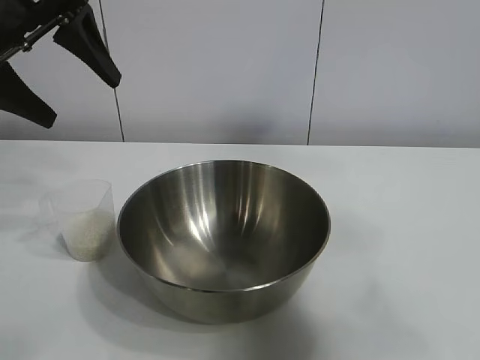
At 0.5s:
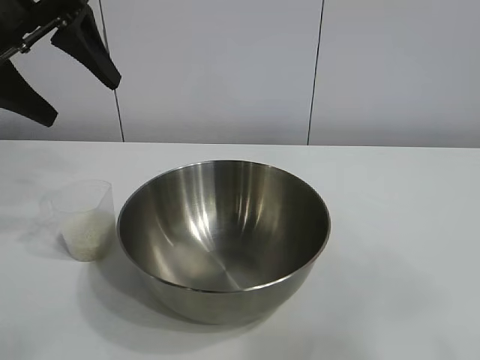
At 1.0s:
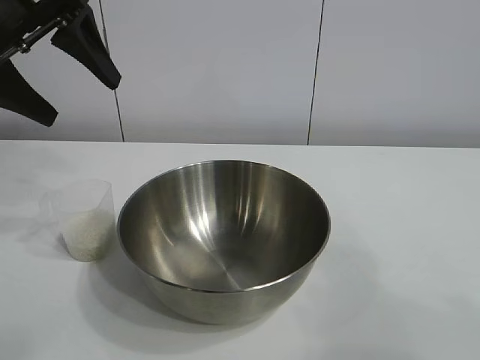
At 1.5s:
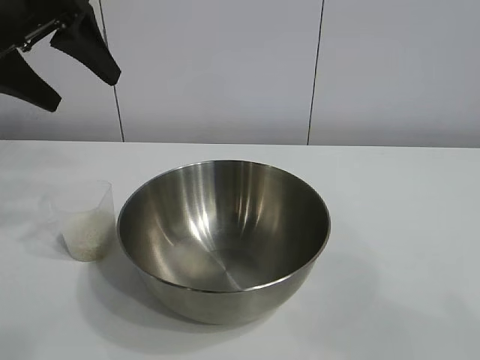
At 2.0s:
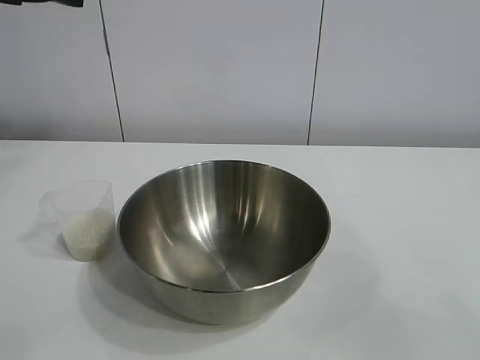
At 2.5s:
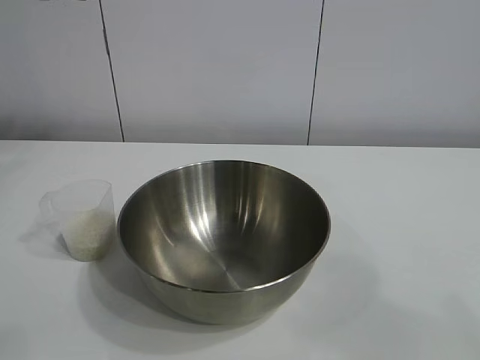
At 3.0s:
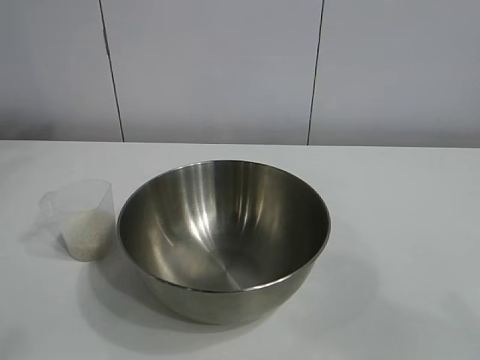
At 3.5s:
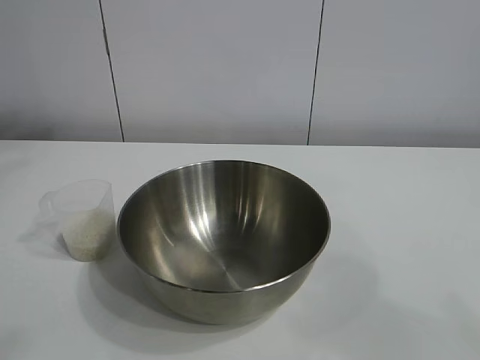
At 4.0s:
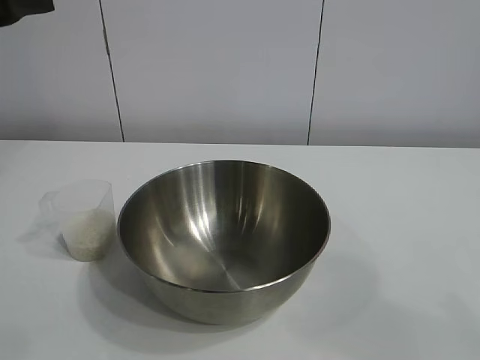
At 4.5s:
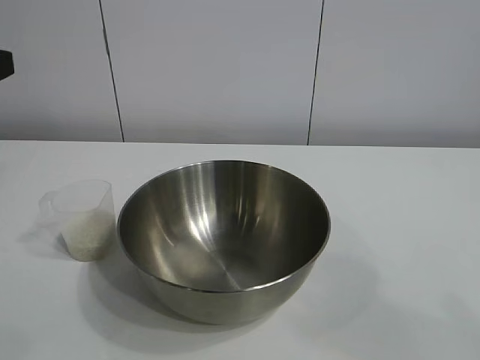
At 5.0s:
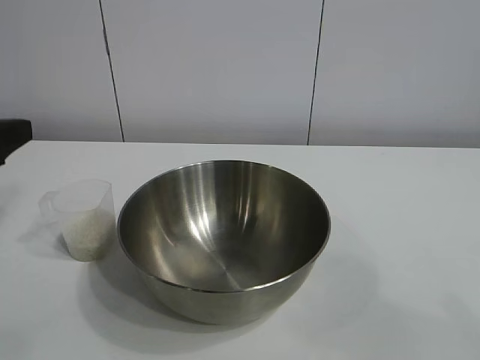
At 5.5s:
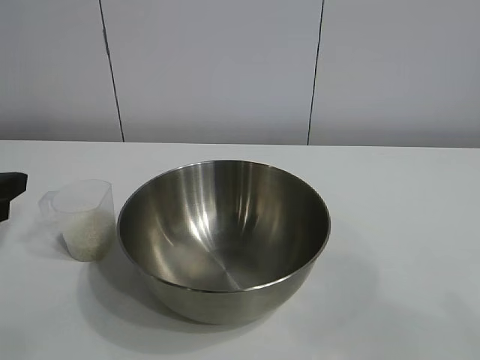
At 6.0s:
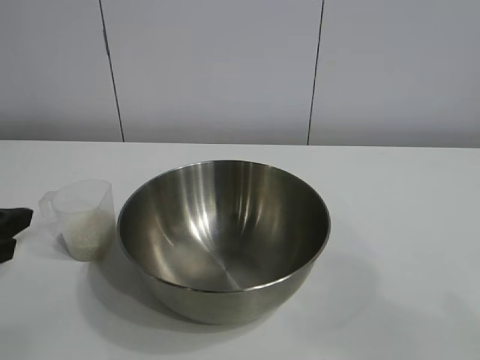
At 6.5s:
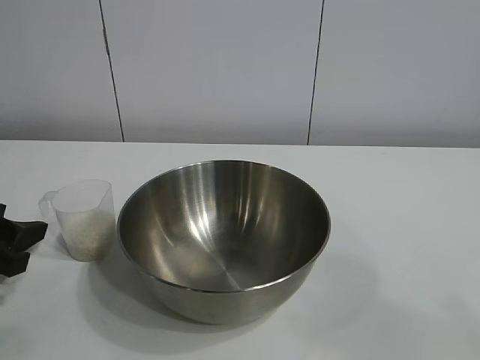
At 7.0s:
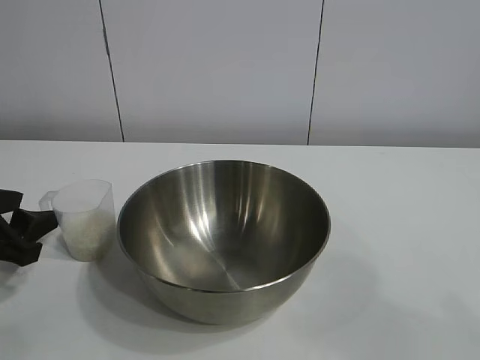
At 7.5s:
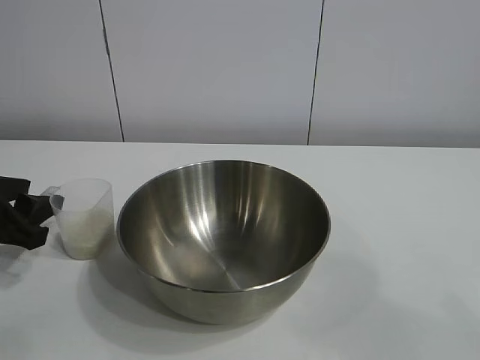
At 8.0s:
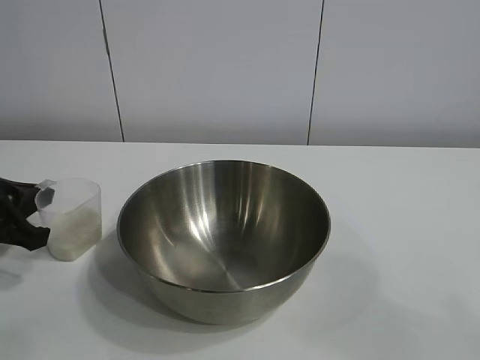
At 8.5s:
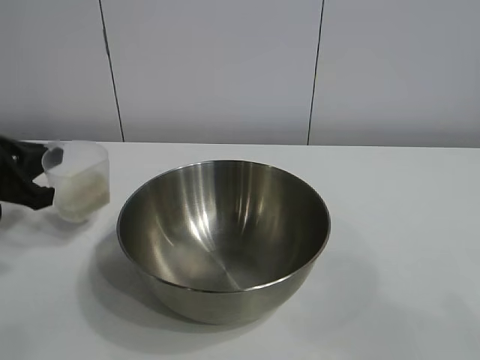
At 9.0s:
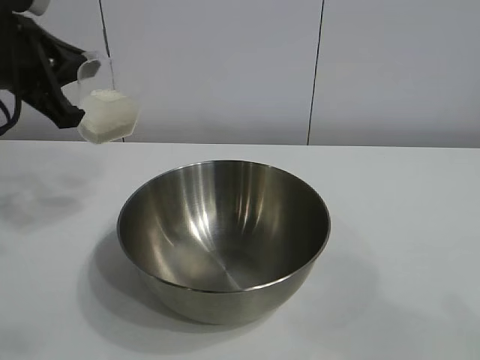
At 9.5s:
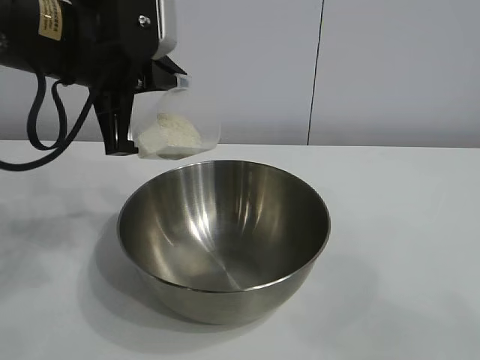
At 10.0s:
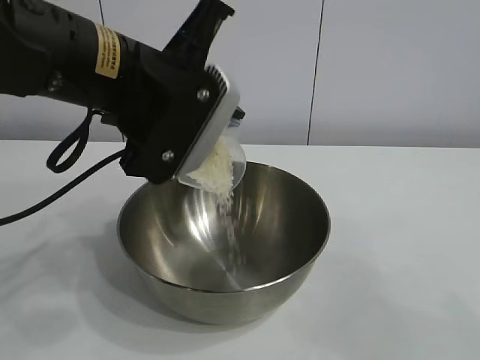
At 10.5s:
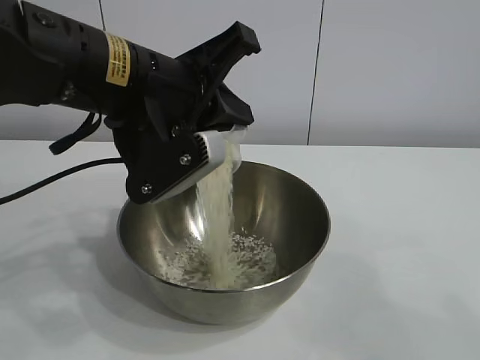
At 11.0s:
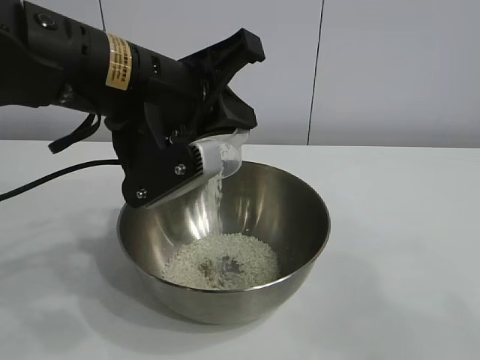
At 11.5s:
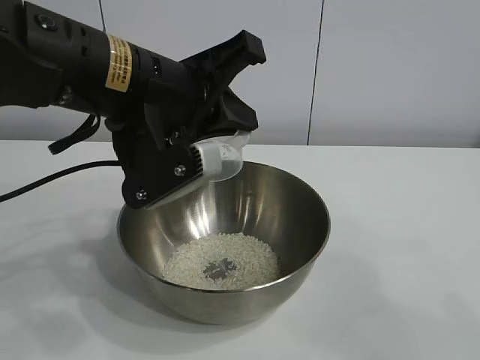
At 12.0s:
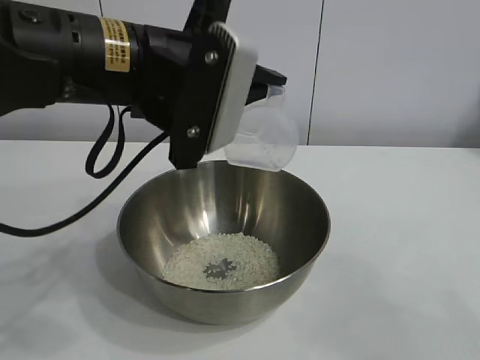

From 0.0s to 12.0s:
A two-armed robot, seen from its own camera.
Task of the whole recording: the right gripper grasp the rice container and place it in the center of the table, the left gripper grasp the rice scoop and pour the rice into the rice container.
Step, from 0.0s to 7.5s: Grasp the cup with rice in it with left gripper.
Step, from 8.0s to 11.5s: Pour the rice from the cup into the bowl with the left gripper.

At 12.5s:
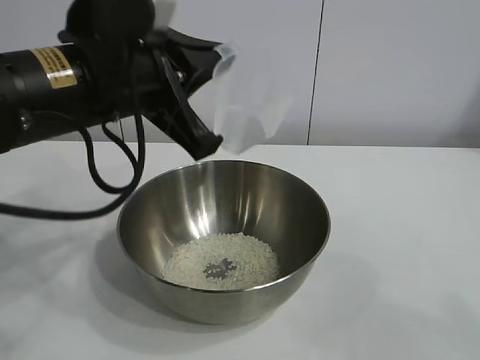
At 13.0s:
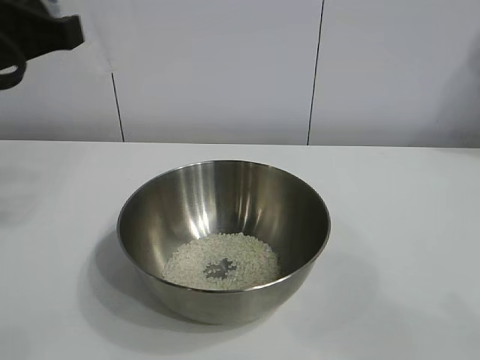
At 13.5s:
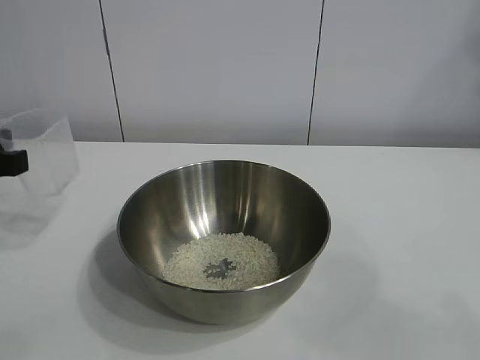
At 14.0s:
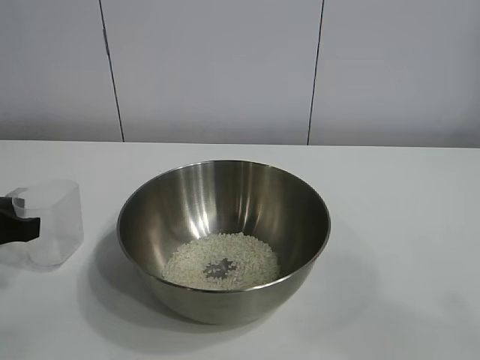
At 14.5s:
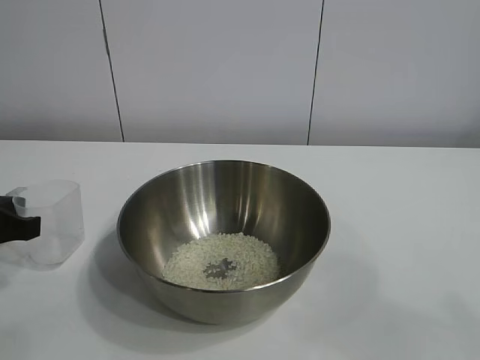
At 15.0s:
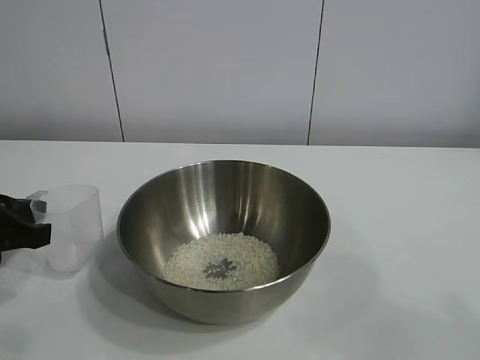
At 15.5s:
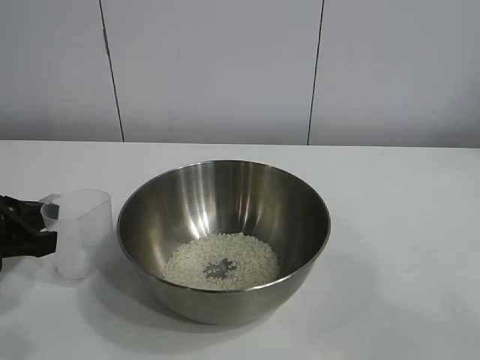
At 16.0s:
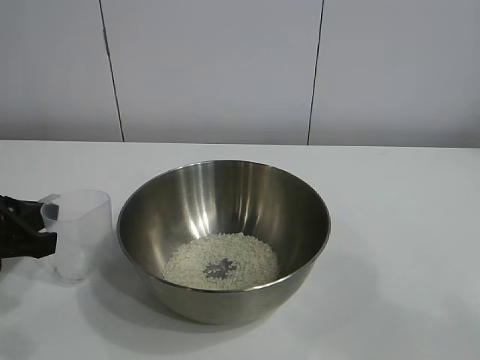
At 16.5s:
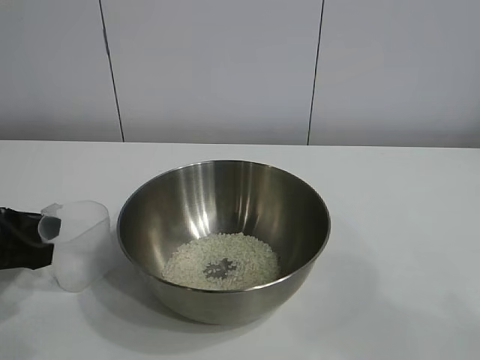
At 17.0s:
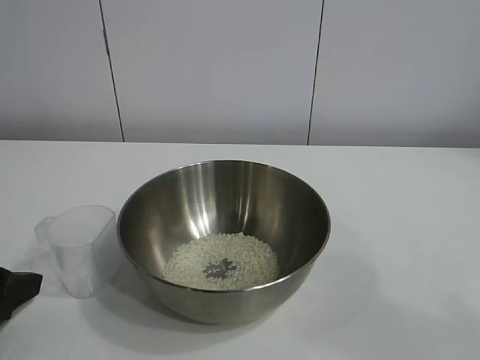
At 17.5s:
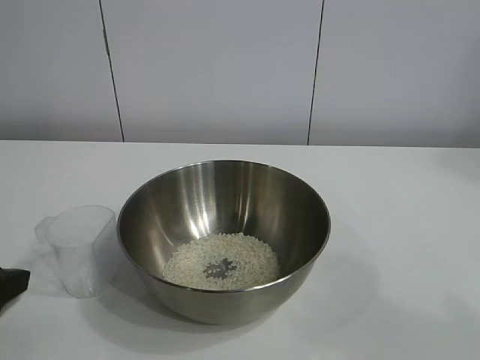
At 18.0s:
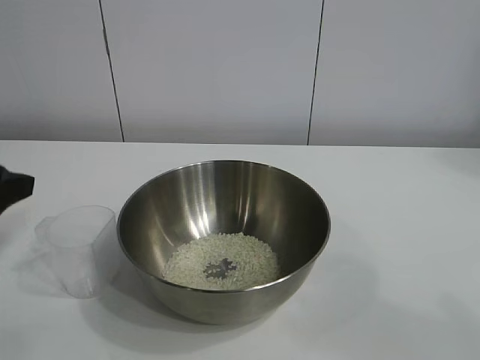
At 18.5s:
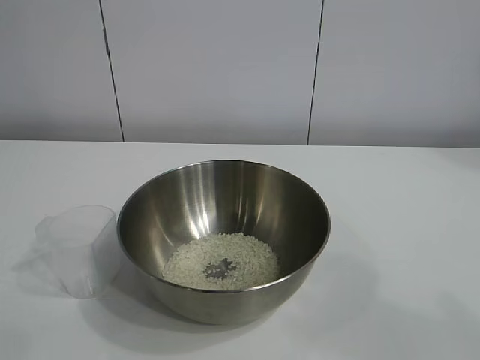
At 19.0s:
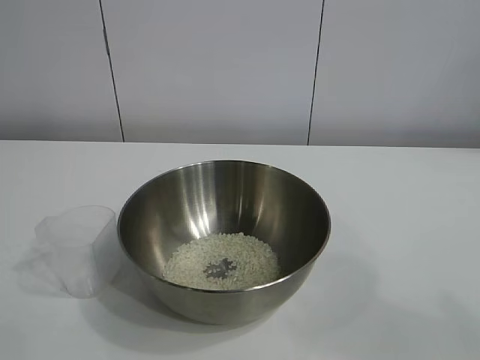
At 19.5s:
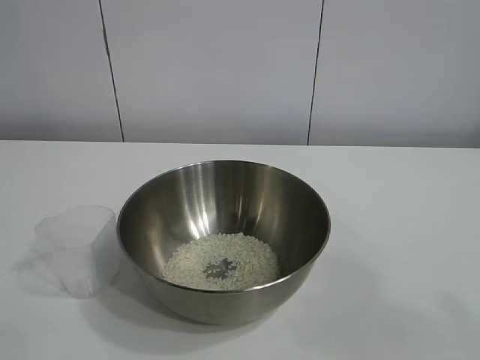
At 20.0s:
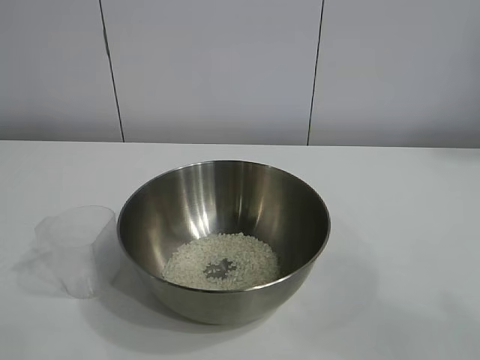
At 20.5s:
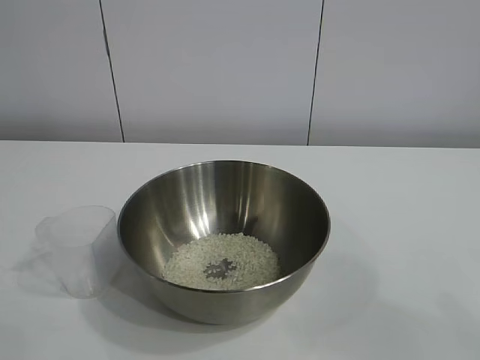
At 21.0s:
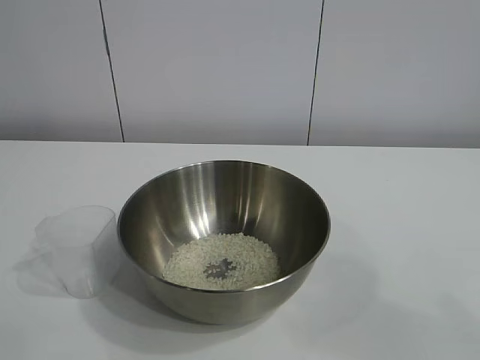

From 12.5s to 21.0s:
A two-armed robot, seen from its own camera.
Task of the whole recording: the right gripper grasp the rice container and place it in the center of the table, the left gripper grasp the rice scoop and pour the rice into the rice container.
Step, from 12.5s to 16.5s: Place the cup on the table with the left gripper.

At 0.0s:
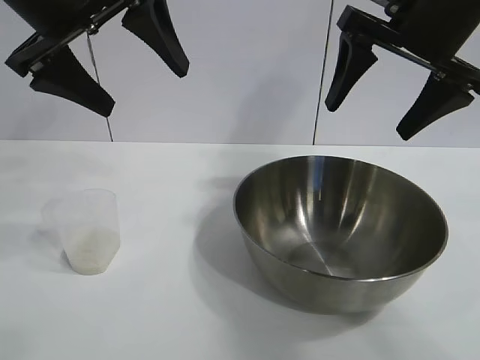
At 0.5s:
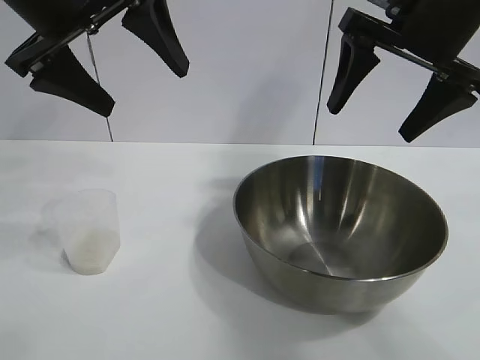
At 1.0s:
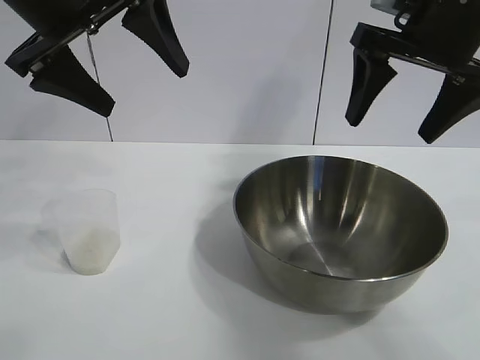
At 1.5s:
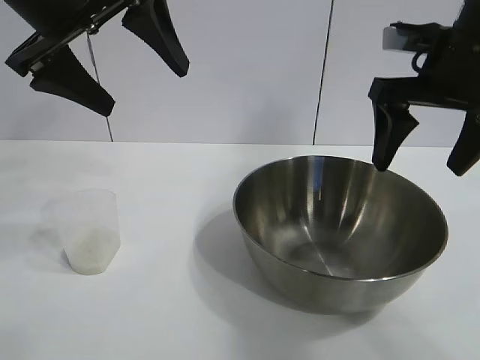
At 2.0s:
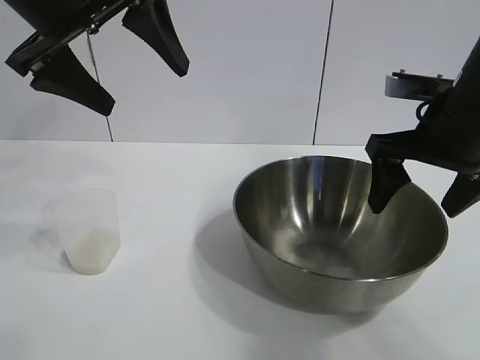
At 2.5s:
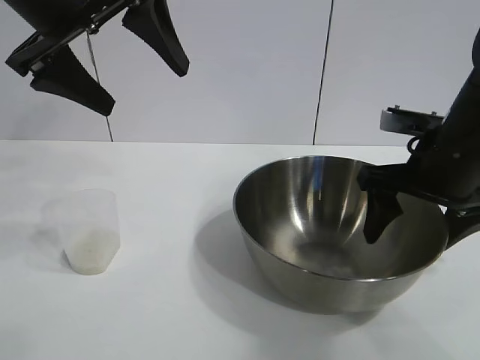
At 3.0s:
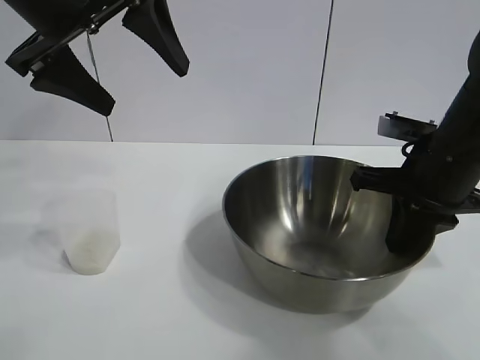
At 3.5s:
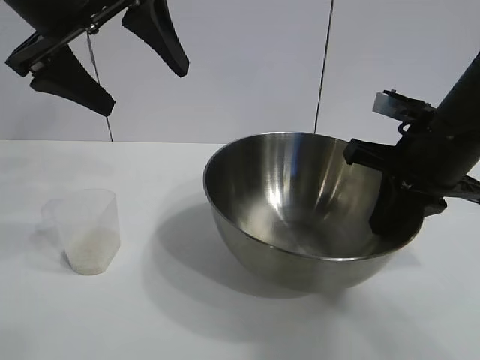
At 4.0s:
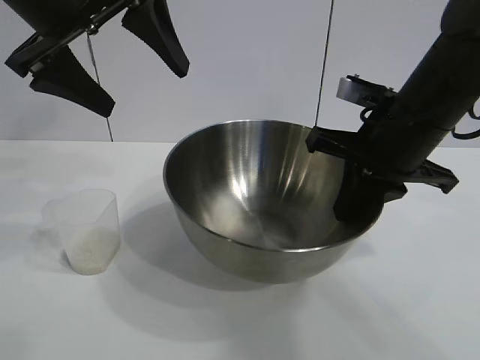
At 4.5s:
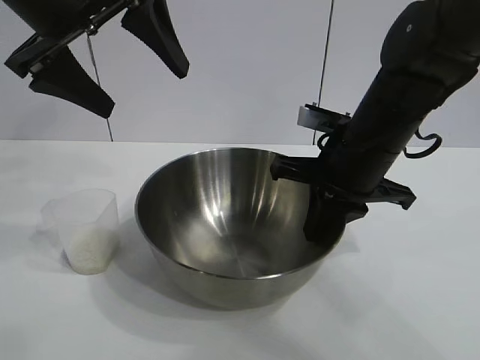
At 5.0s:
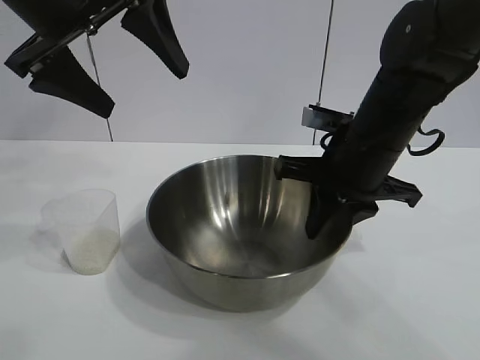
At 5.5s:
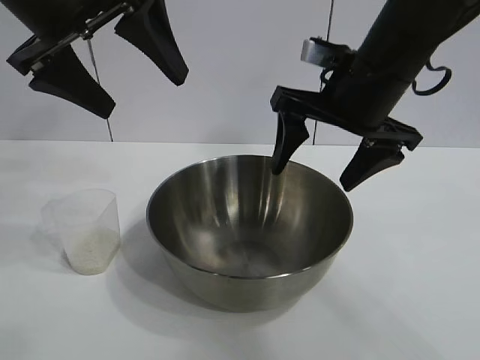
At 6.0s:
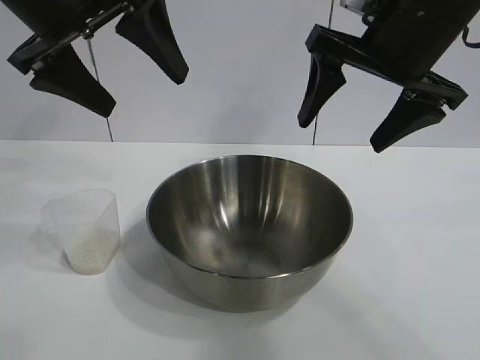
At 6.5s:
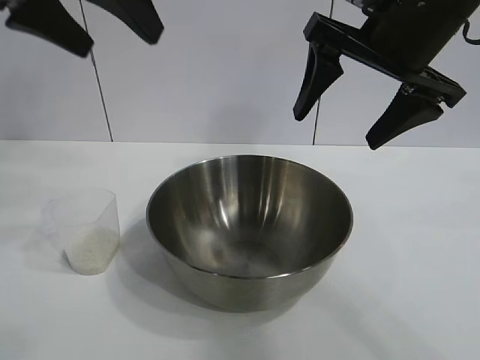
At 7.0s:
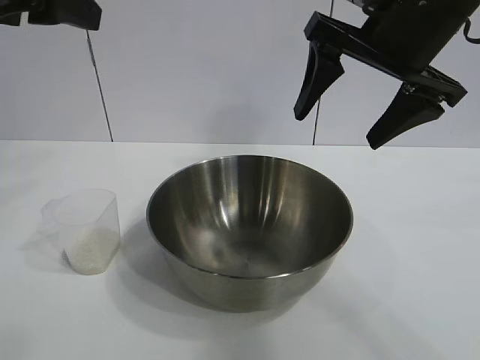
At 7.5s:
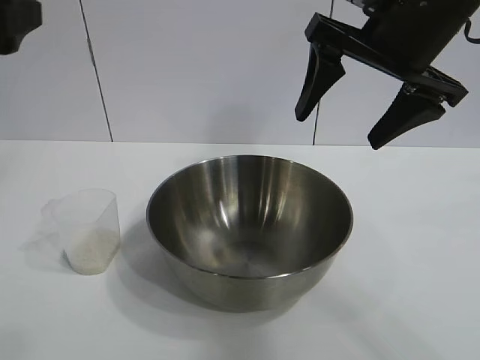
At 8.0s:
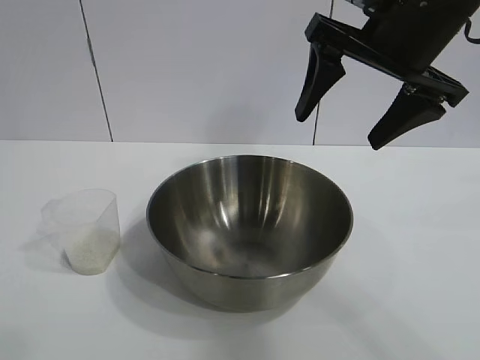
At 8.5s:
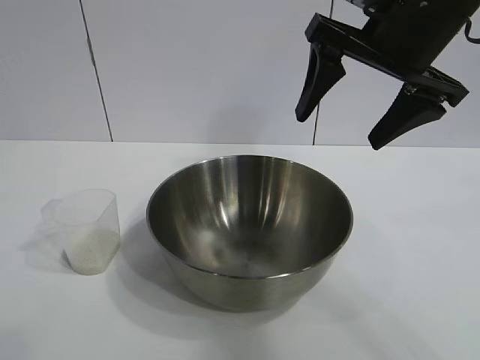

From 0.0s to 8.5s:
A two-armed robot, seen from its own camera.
Task of the whole recording: the right gripper grasp the rice container and place it in the center of the table, the left gripper grasp the rice scoop and pour the rice into the rice container.
Step, from 1.0s to 5.5s: Move the bowl in the center of view with right gripper.
